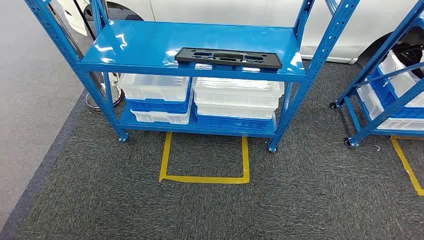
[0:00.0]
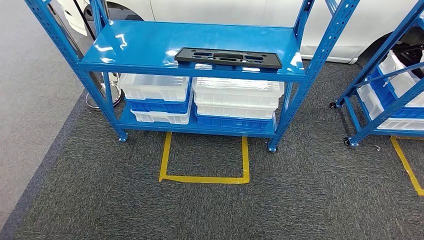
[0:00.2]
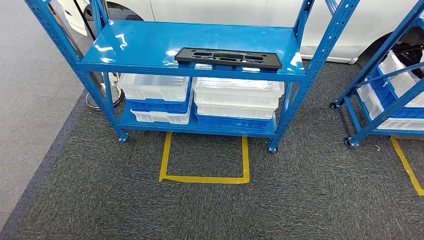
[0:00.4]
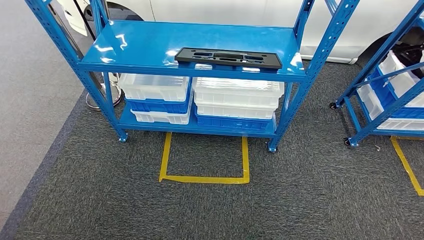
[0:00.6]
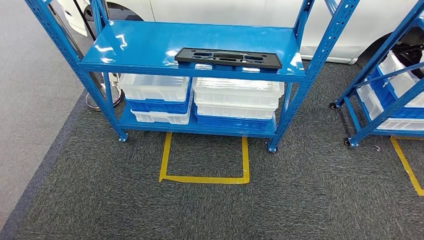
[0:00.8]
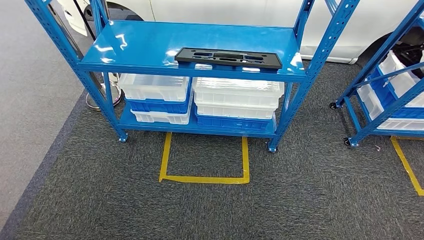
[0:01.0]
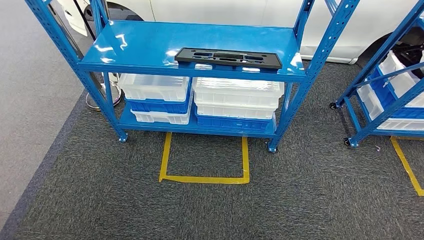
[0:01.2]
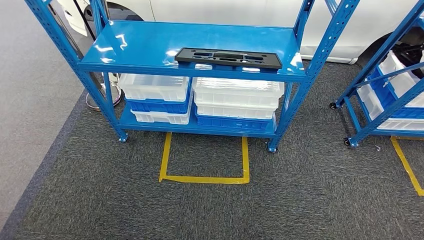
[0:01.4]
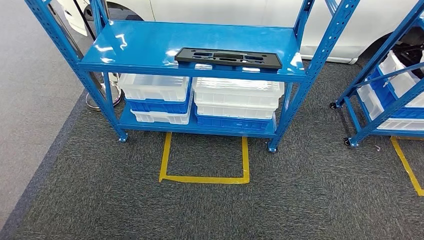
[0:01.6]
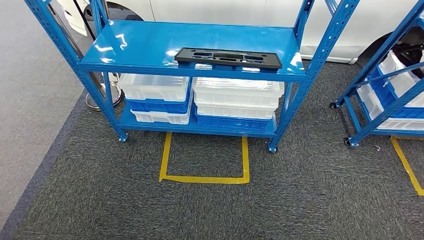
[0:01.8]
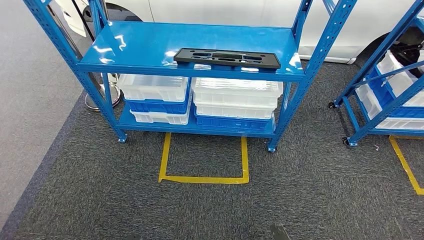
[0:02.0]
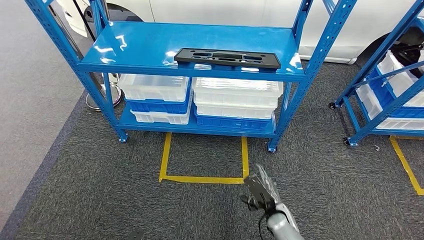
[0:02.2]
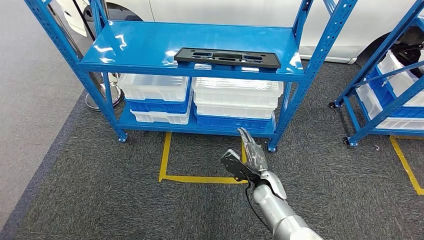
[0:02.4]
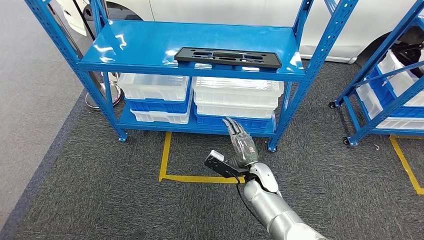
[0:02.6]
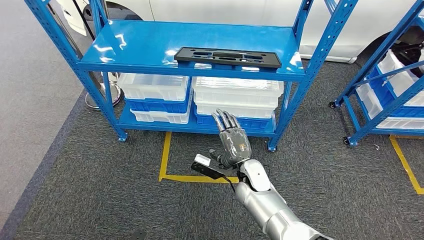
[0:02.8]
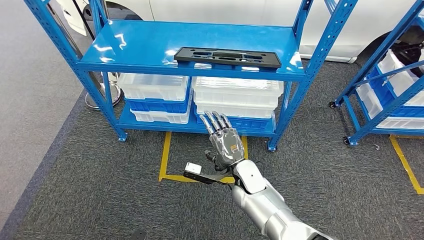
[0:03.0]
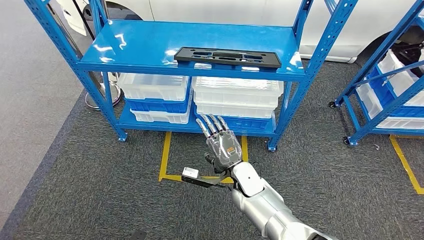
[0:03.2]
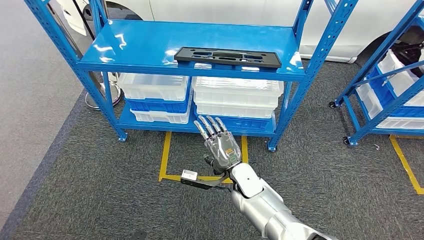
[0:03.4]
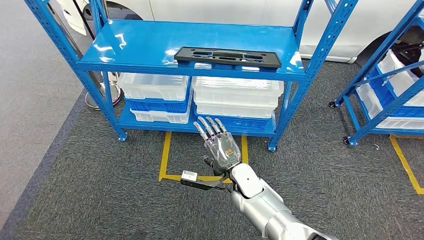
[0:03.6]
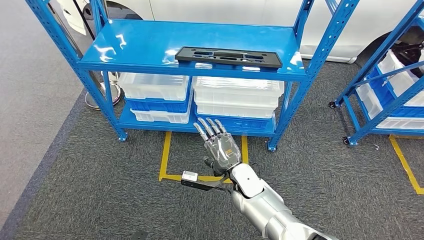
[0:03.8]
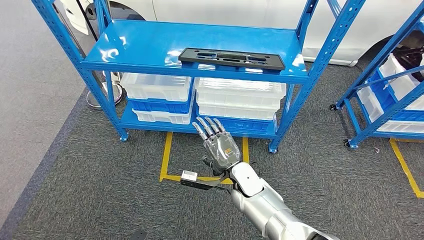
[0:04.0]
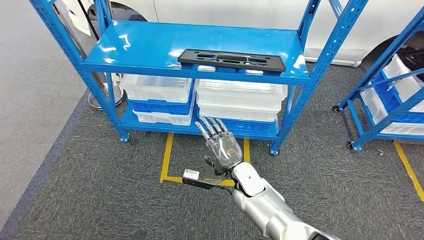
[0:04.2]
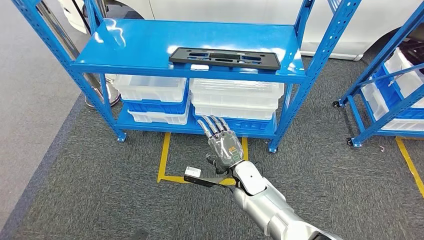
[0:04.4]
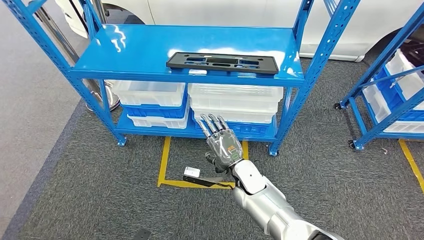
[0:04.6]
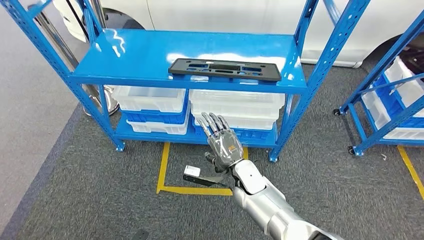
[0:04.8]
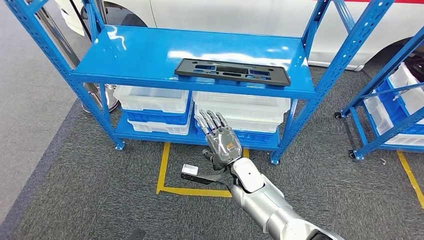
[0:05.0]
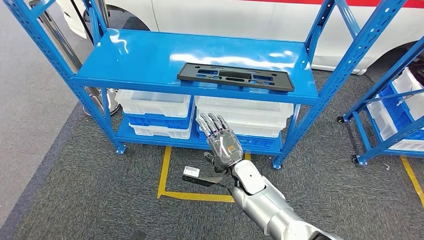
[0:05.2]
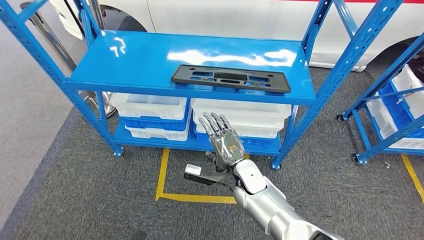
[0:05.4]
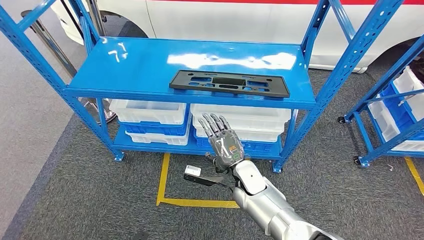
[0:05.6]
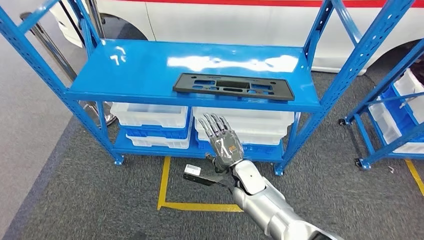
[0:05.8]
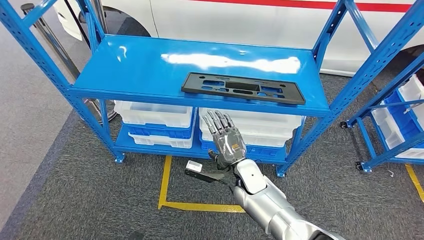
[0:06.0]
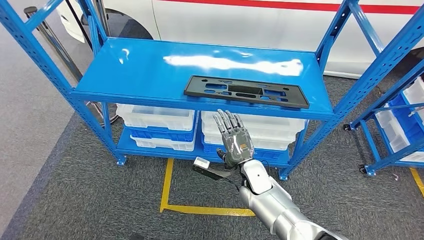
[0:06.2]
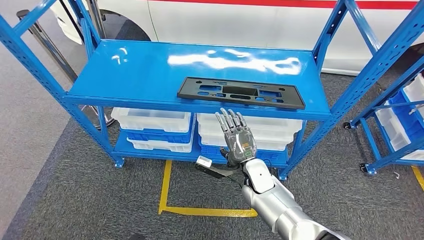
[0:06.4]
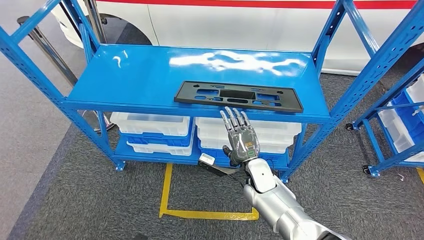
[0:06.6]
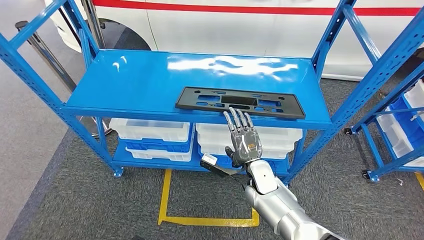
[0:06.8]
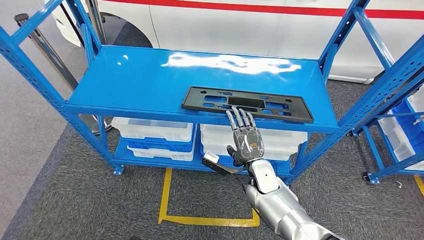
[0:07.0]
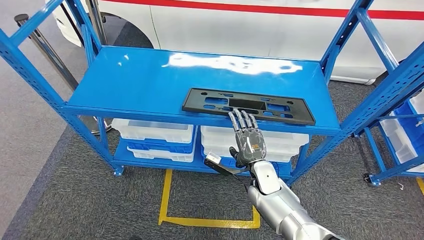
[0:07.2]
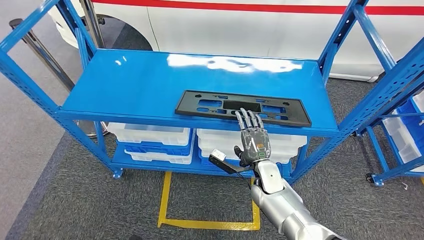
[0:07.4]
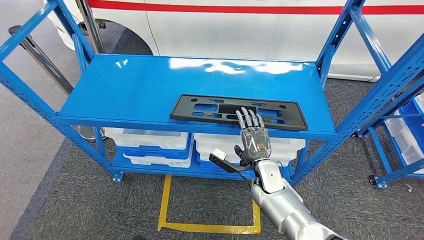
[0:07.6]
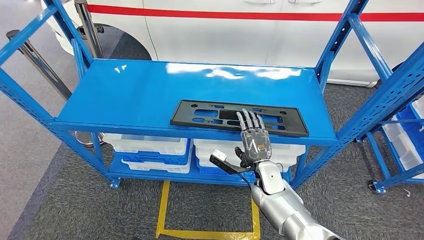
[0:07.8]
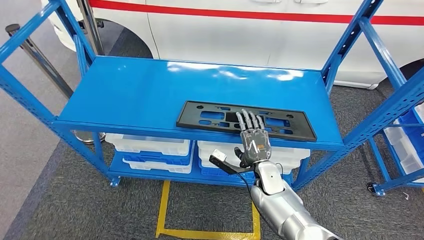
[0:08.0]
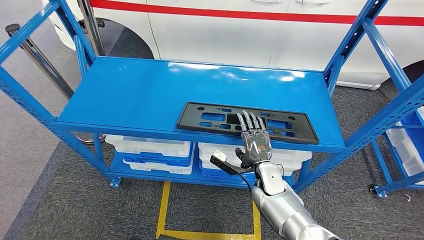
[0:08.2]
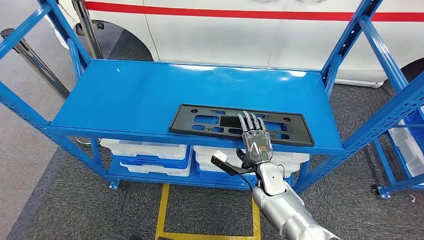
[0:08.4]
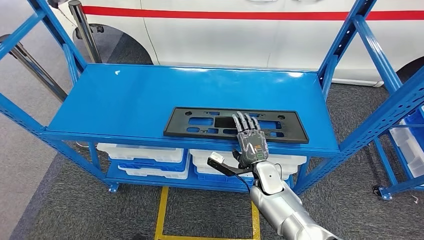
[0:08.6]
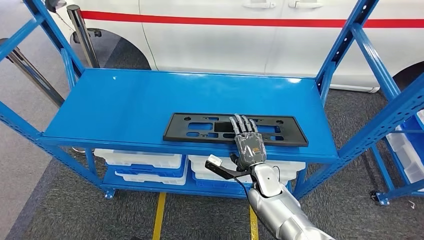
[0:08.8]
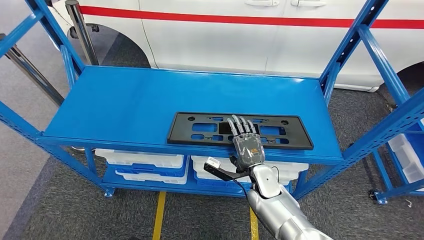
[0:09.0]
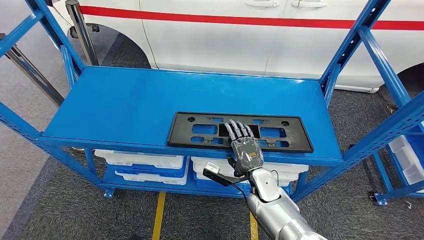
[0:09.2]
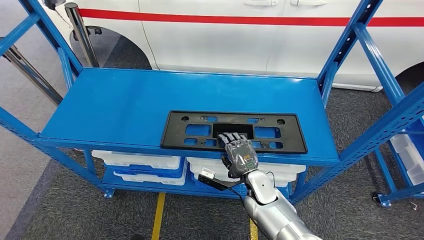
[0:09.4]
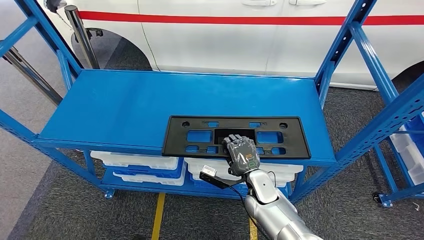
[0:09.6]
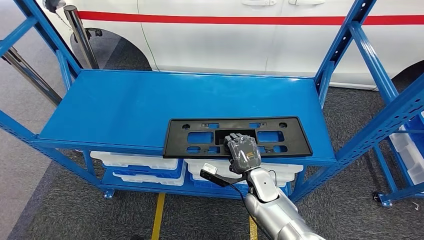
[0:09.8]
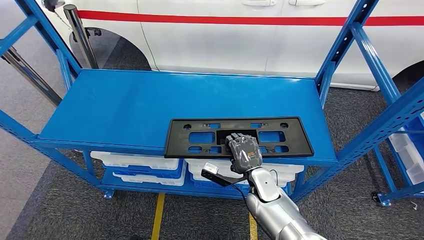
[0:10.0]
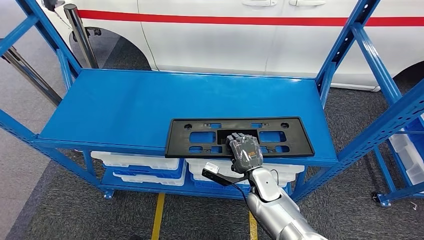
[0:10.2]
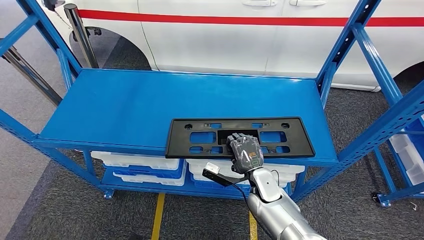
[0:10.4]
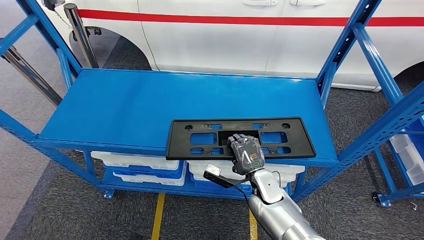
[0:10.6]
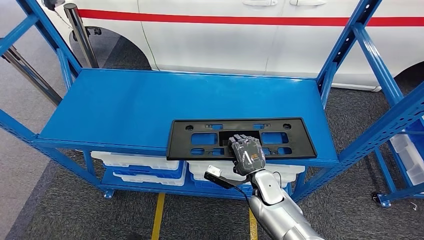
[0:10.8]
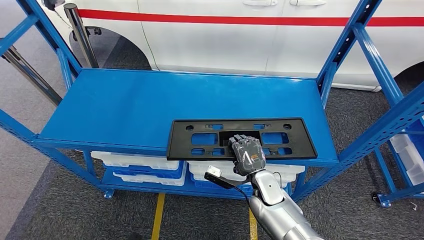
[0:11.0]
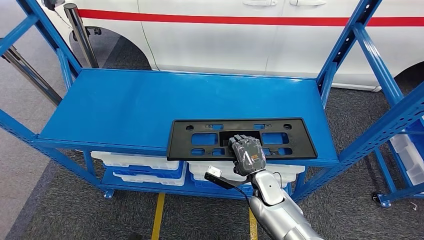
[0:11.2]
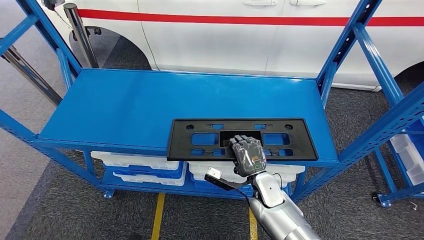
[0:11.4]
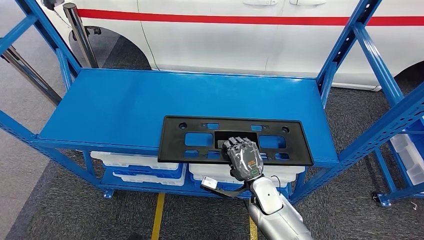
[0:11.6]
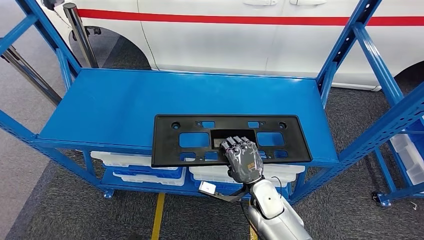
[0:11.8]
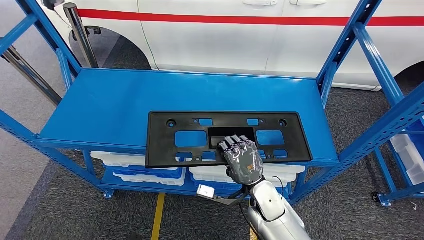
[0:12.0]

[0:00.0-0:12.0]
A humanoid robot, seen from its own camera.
0:01.6 to 0:03.0: The right hand goes roughly 40 cm forward, upward and to the left.
0:10.4 to 0:12.0: The right hand changes place by about 5 cm.

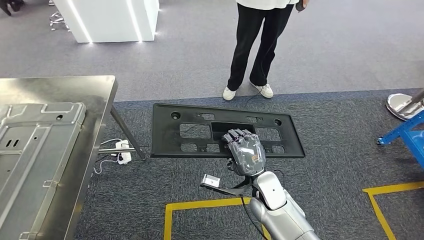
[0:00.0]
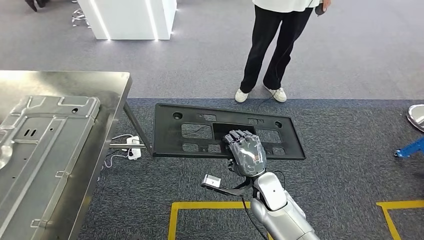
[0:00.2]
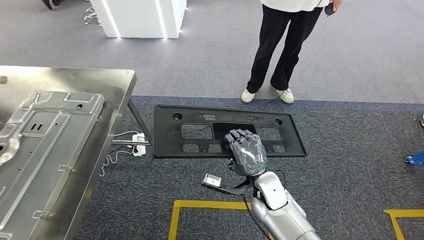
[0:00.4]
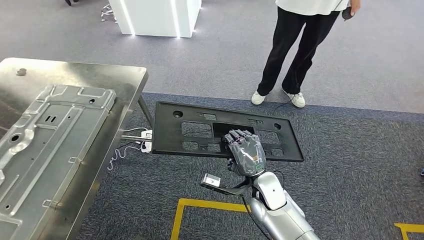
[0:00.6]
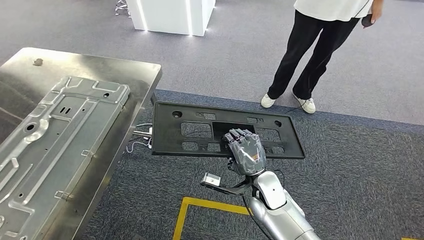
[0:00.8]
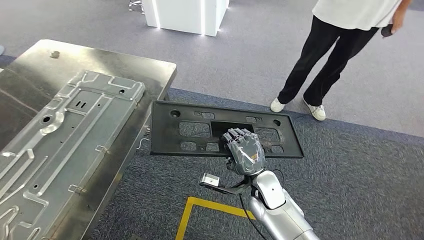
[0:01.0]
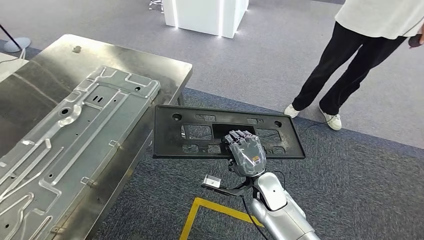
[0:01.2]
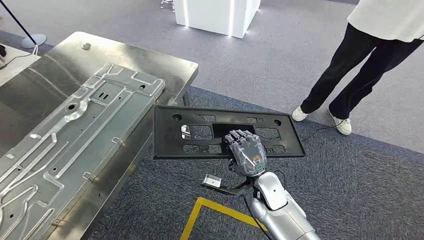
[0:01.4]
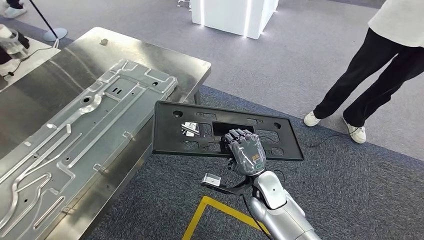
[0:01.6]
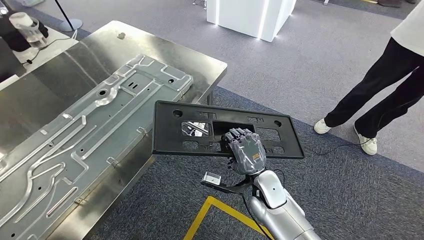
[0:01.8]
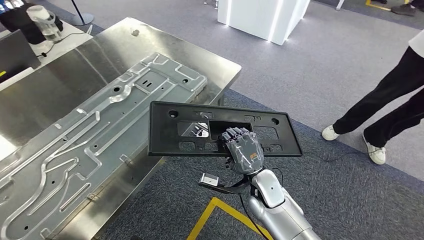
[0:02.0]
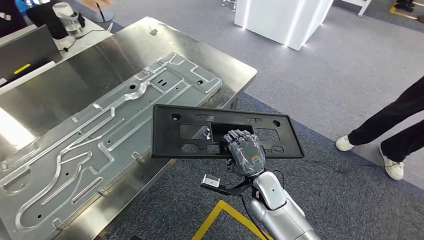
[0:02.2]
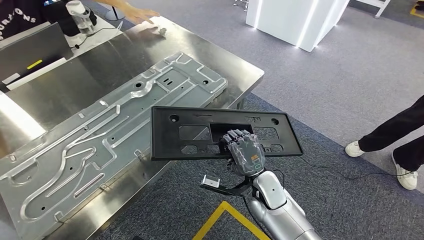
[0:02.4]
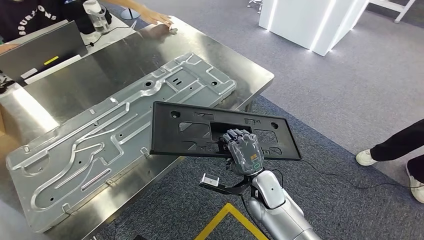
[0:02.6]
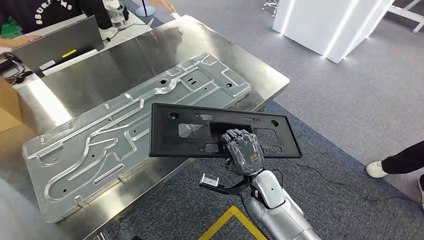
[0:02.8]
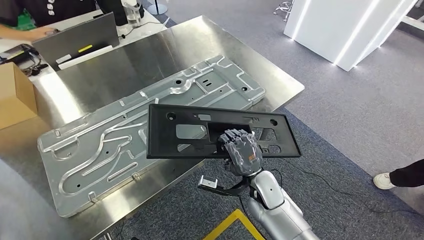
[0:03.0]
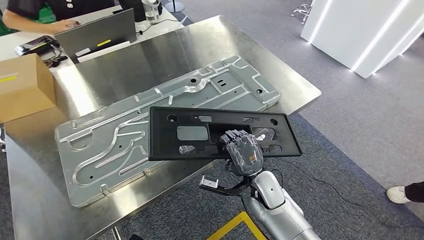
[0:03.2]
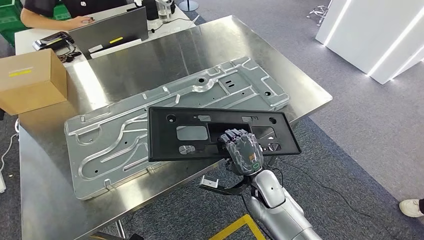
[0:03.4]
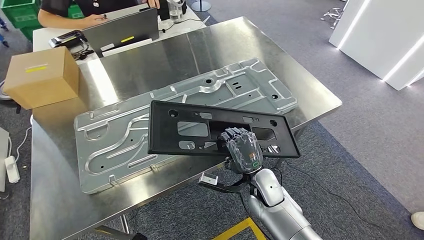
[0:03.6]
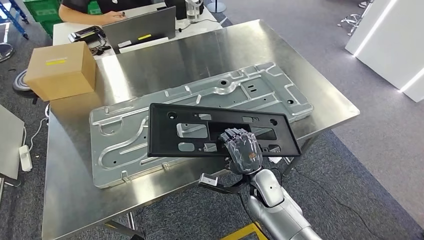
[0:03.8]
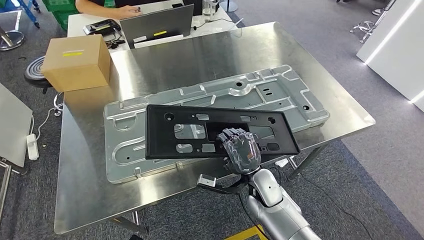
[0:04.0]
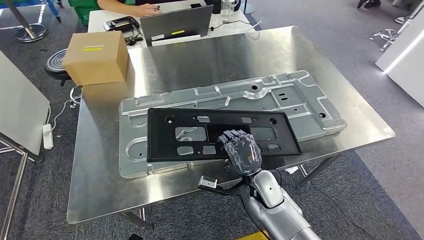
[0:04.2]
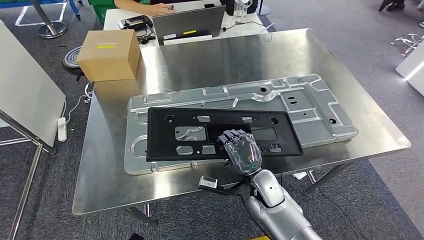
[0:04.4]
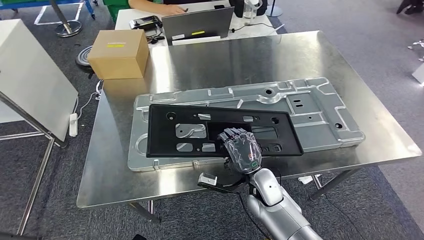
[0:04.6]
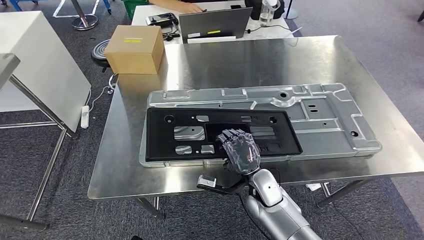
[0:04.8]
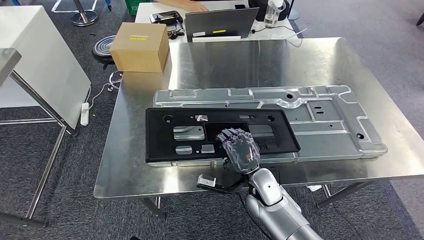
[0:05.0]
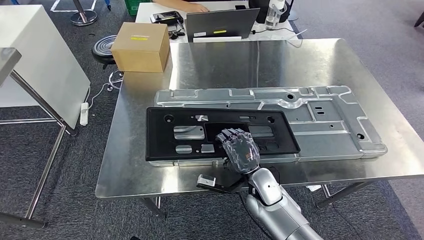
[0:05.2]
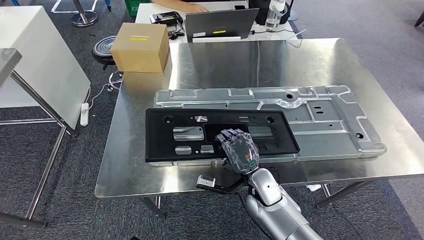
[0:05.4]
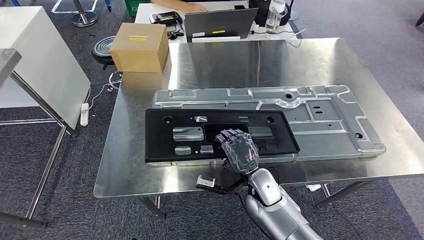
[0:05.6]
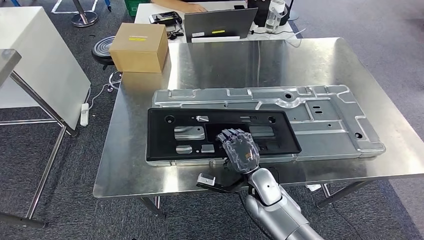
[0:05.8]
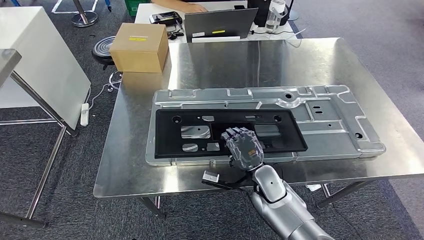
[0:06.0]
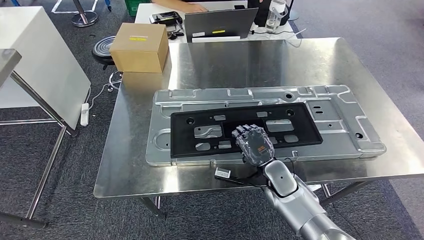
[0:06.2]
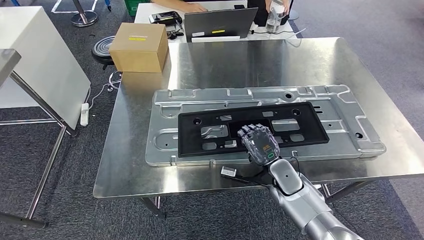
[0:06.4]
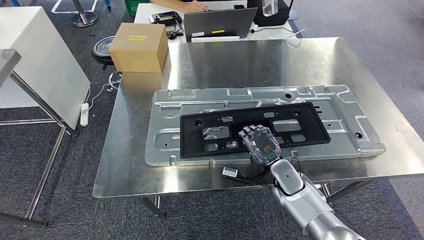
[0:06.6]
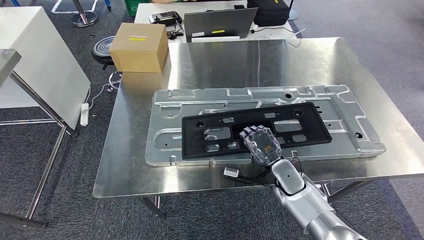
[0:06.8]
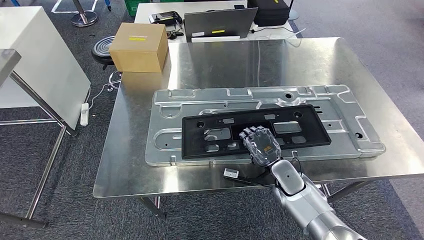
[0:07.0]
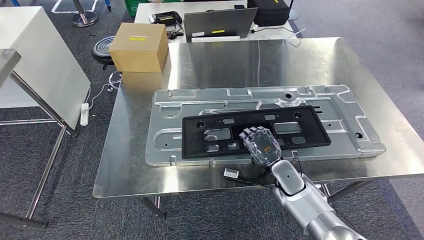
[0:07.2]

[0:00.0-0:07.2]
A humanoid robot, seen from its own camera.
0:05.8 to 0:07.2: The right hand heads to the right, covering about 10 cm.
